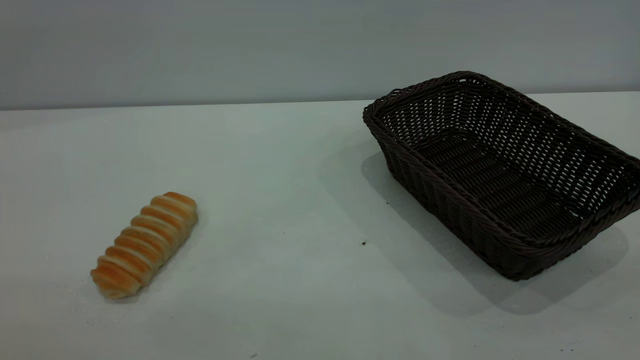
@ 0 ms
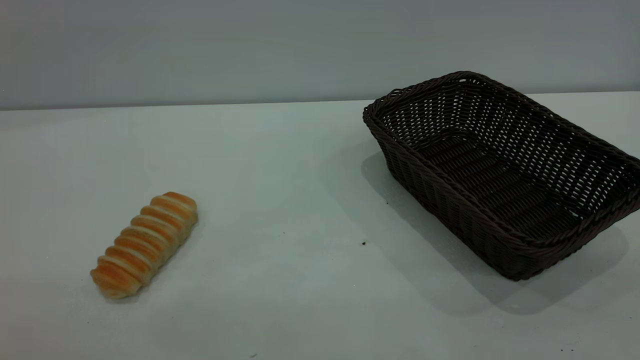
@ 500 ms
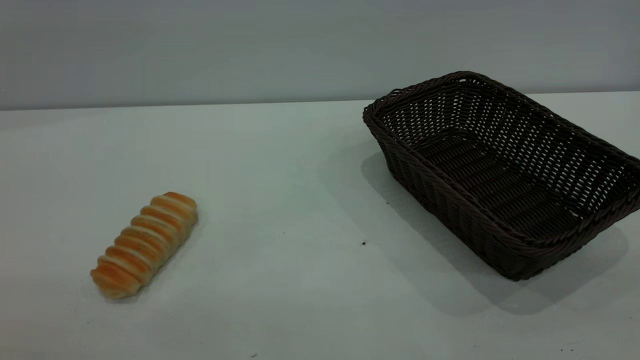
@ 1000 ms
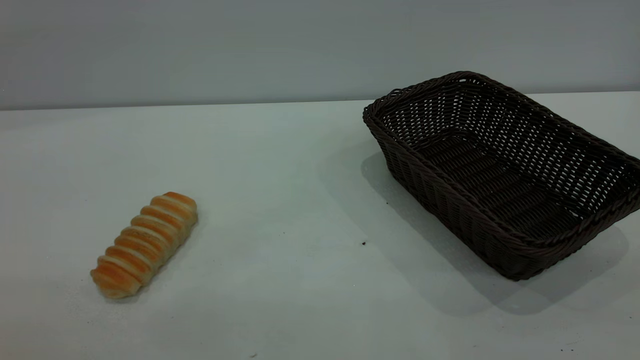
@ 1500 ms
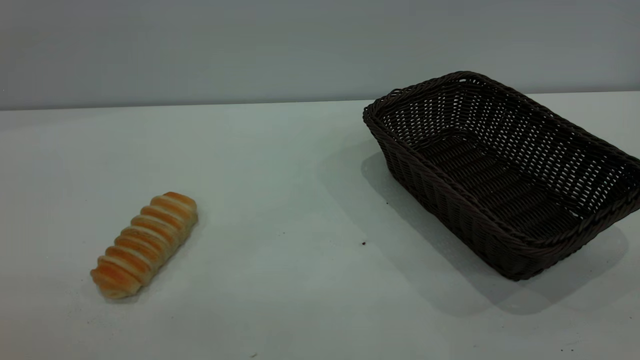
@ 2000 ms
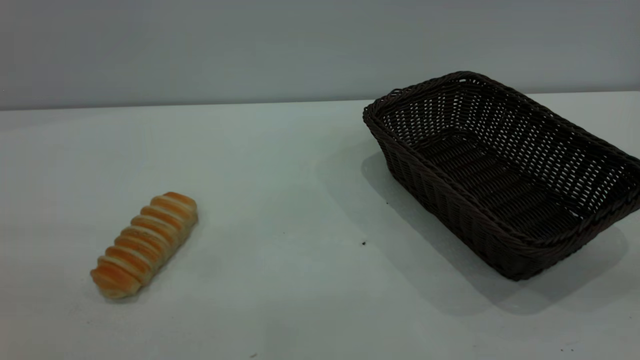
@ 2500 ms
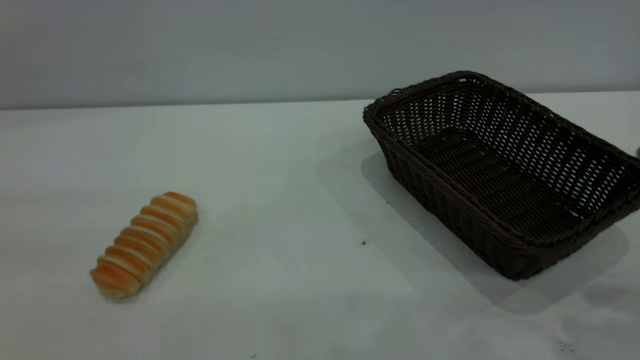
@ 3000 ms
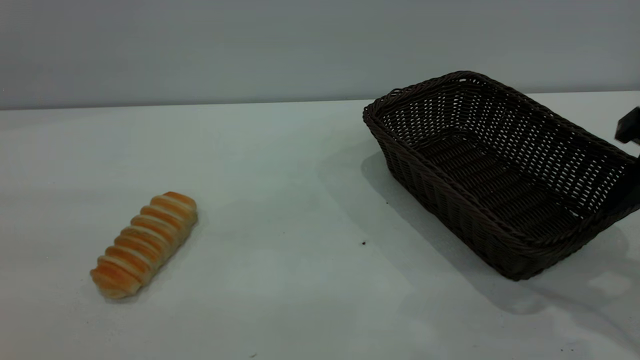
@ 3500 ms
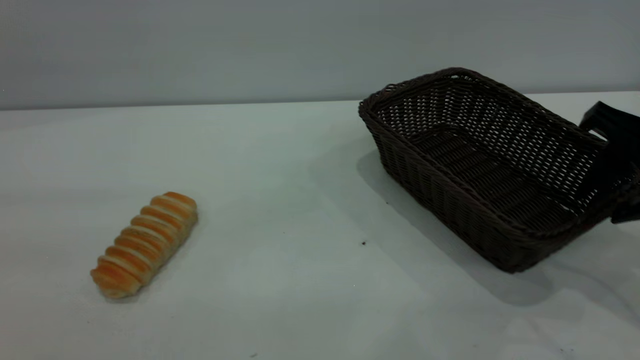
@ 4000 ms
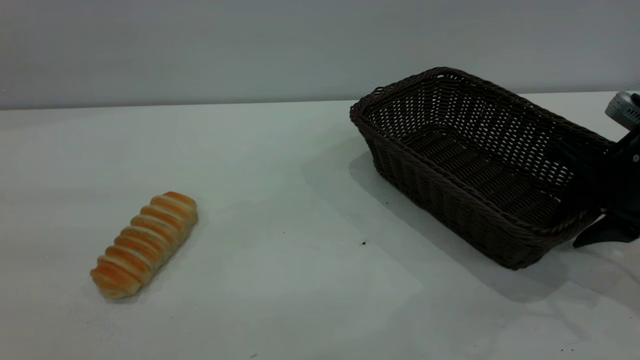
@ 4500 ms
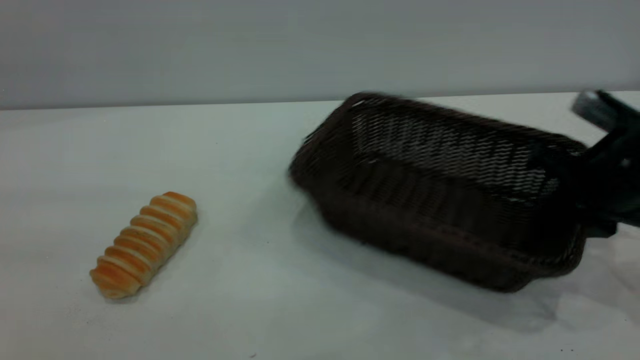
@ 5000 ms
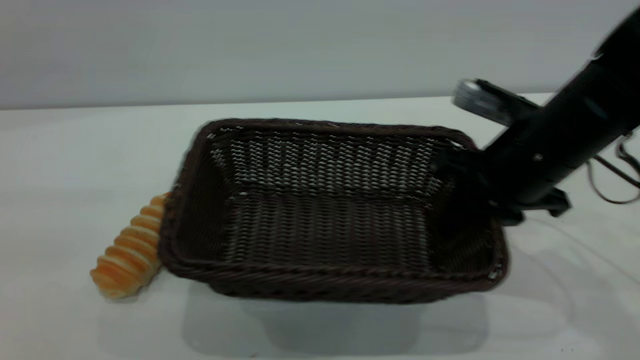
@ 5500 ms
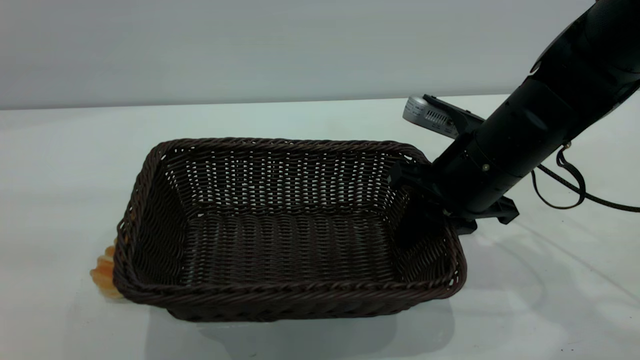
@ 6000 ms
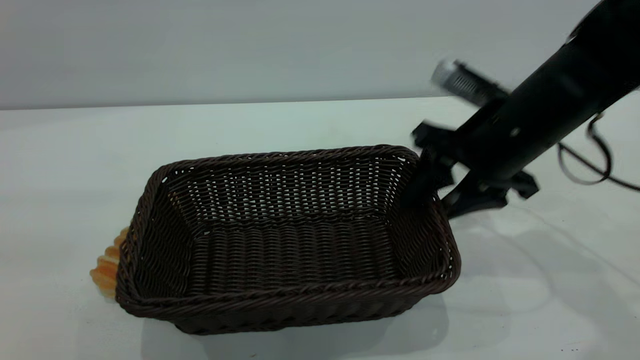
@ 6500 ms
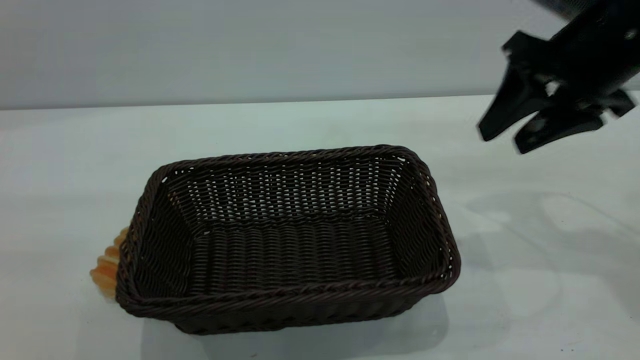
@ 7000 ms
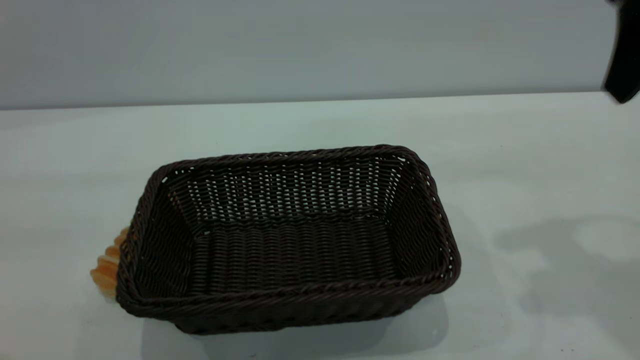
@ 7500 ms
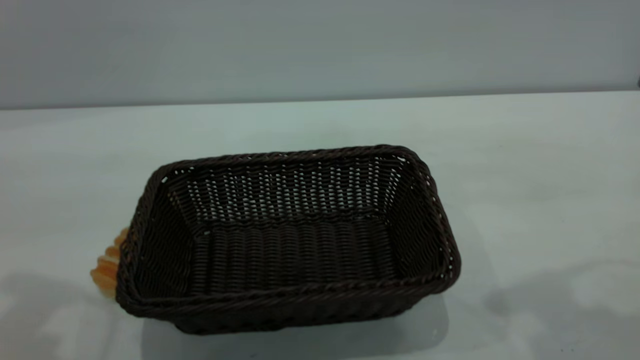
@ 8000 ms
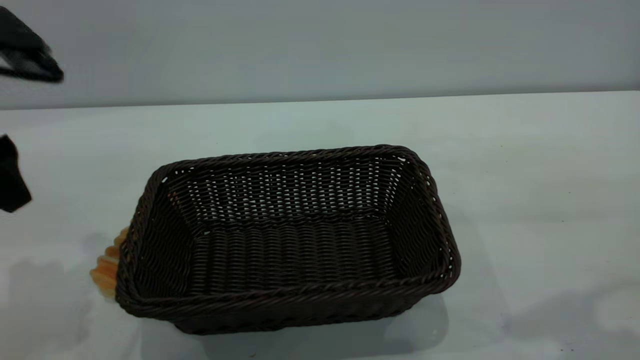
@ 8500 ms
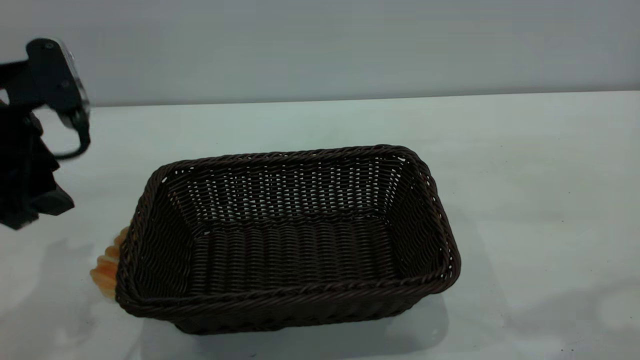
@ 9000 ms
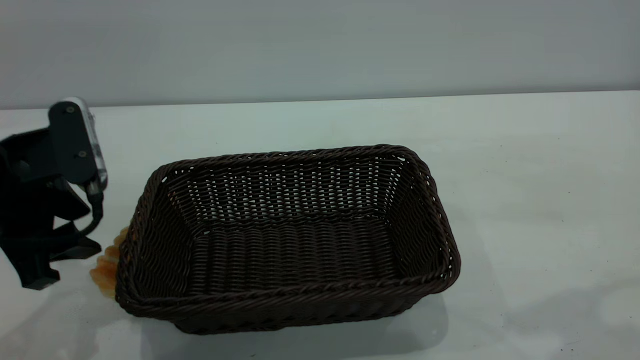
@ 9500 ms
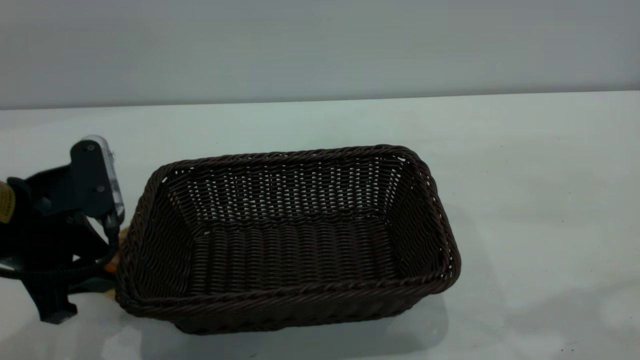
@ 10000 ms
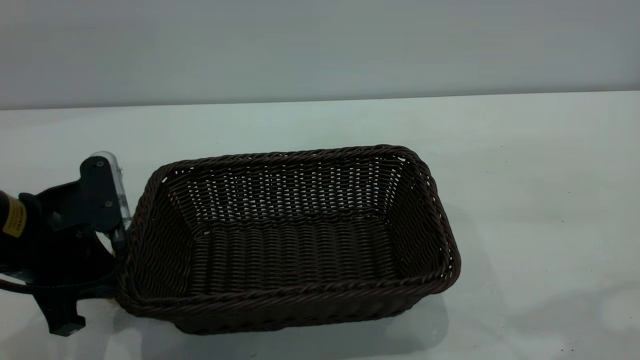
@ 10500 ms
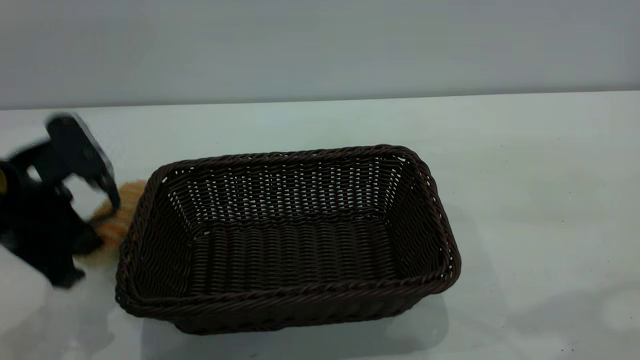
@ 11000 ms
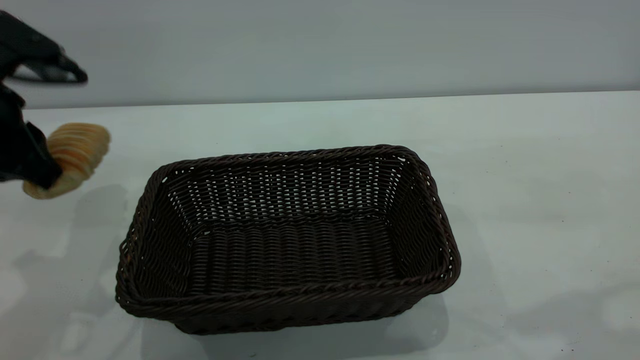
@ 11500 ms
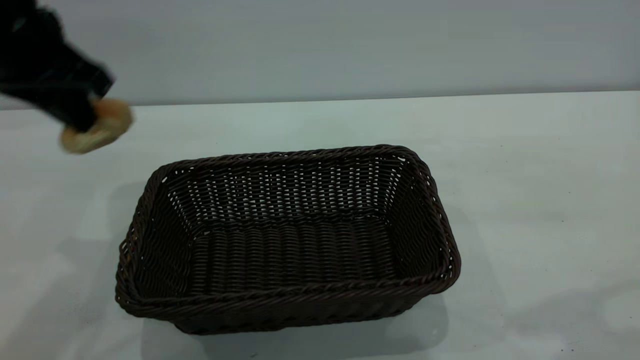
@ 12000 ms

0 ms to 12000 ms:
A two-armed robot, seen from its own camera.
Task of the whole recording: One hand grasps the black basket and places it in the middle of the table, while the other hand picks up the long bread and puts it into the black basket.
Step, 0 ms to 6500 ms: Move the basket to the center of view.
0 ms to 2000 ms: Both grippers stay about where they are.
2000 ms to 4000 ms: The right gripper heads forward and downward, covering roughly 35 cm.
4000 ms to 6000 ms: The right gripper shifts about 15 cm to the left, and closes its fingers.
6000 ms to 8000 ms: The left gripper moves forward, some 15 cm, while the right gripper goes roughly 25 cm upward and backward, and opens.
8000 ms to 10000 ms: The left gripper is displaced downward by some 20 cm.
10000 ms to 12000 ms: The left gripper goes some 15 cm upward and forward, and closes up.

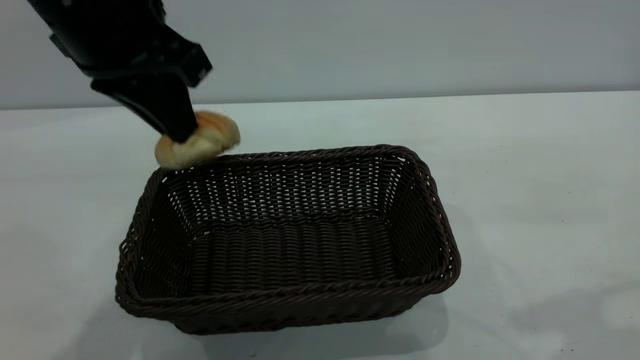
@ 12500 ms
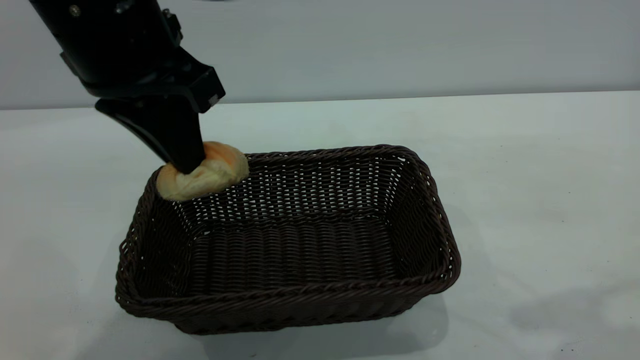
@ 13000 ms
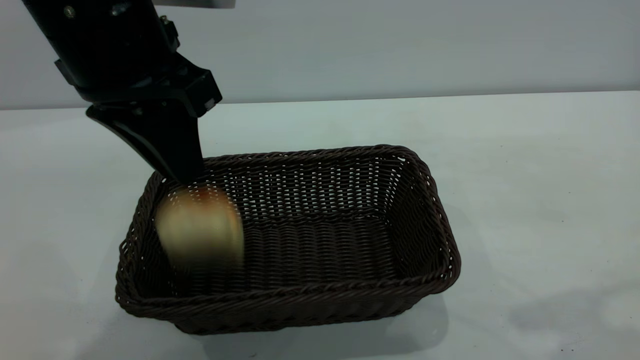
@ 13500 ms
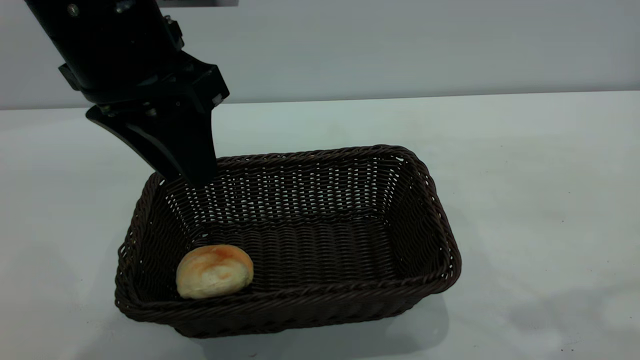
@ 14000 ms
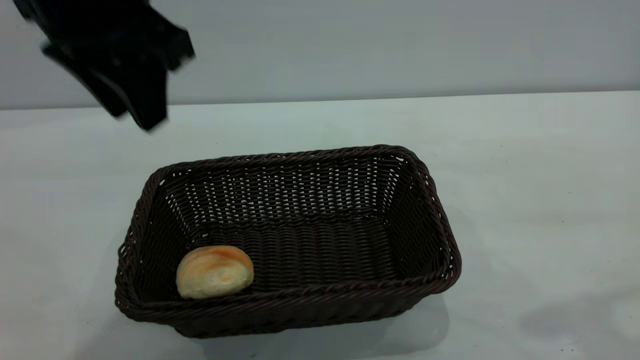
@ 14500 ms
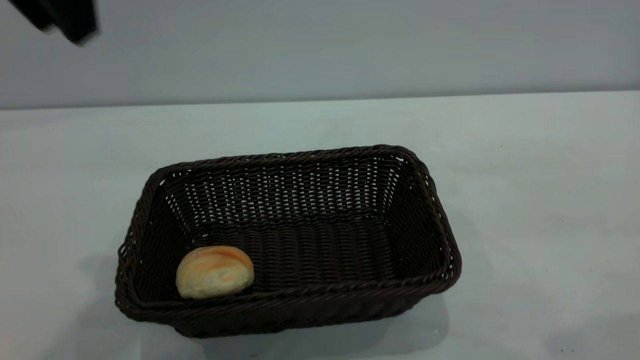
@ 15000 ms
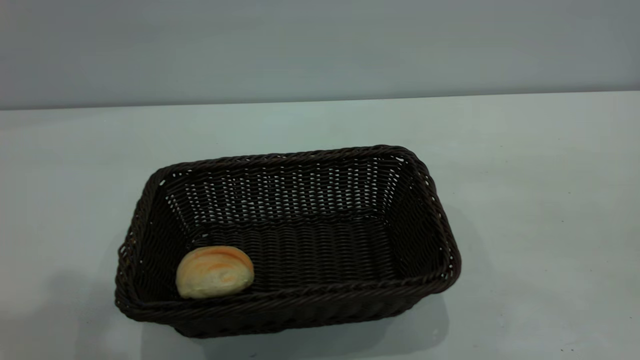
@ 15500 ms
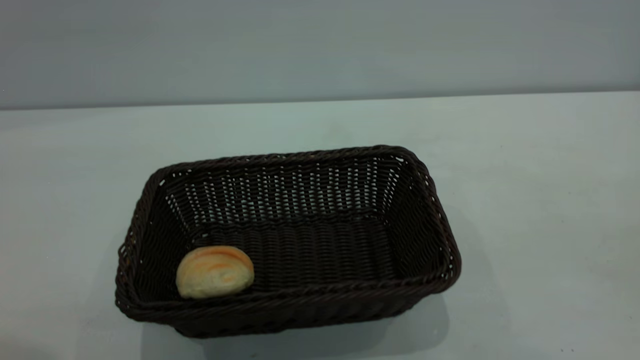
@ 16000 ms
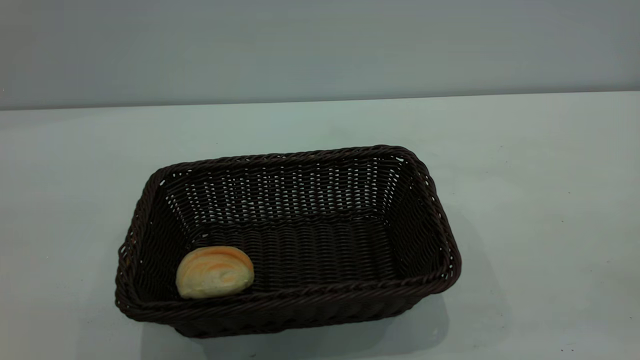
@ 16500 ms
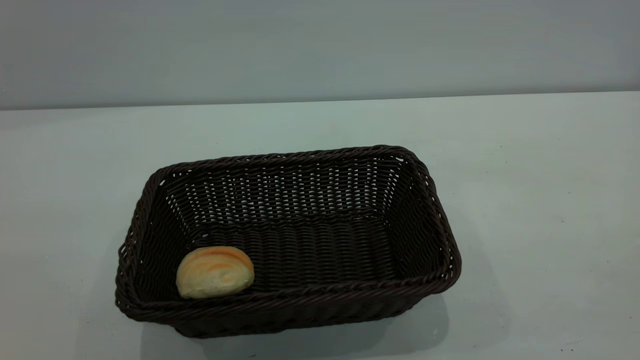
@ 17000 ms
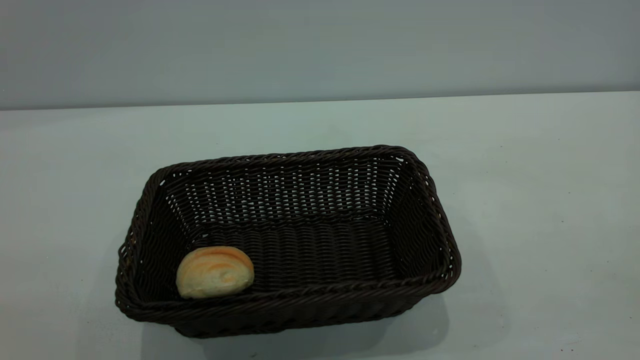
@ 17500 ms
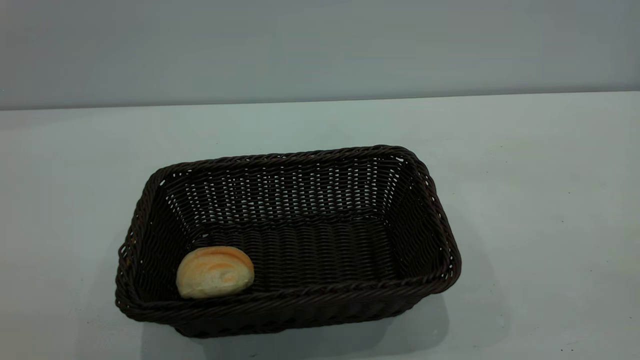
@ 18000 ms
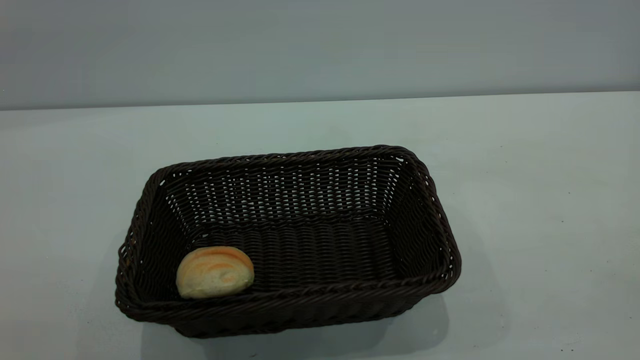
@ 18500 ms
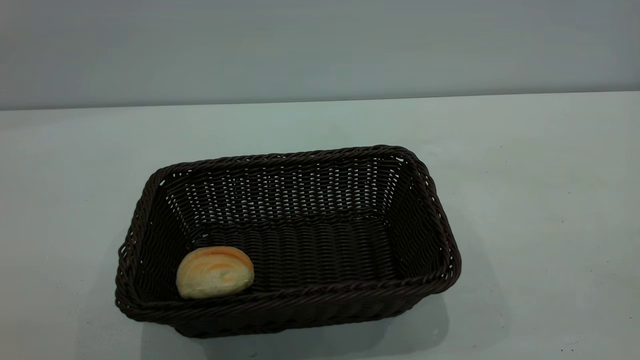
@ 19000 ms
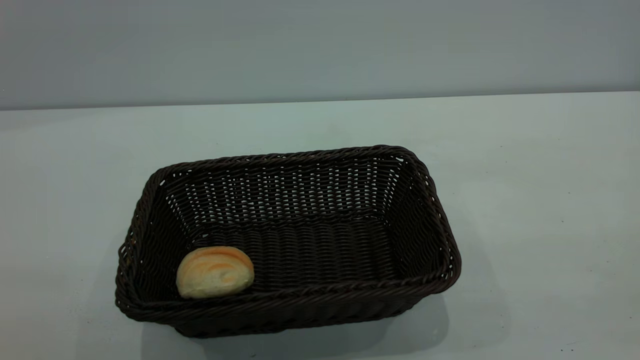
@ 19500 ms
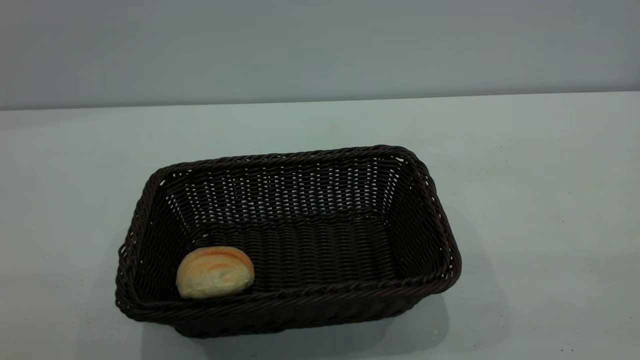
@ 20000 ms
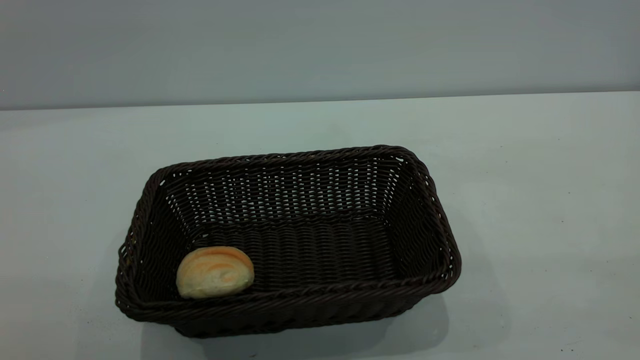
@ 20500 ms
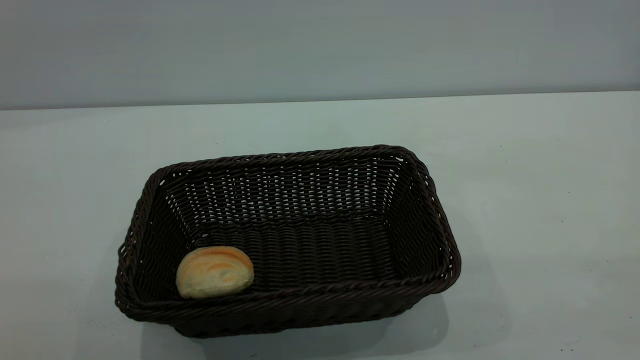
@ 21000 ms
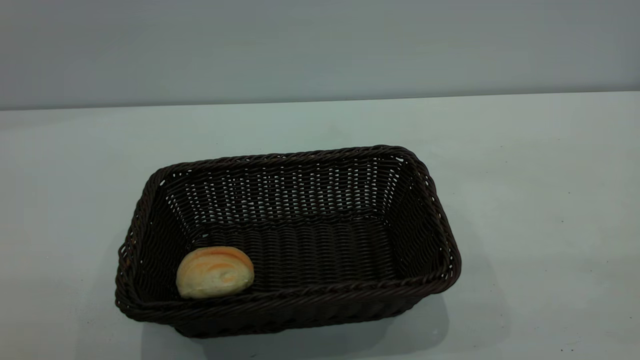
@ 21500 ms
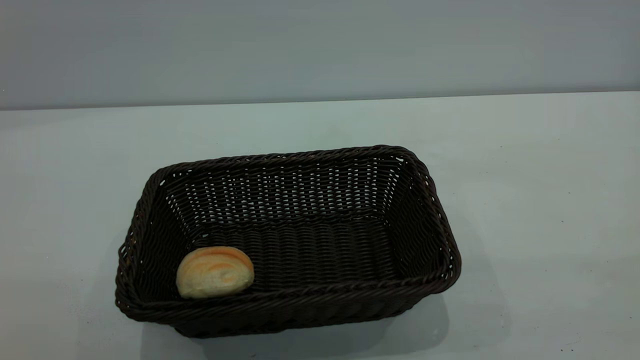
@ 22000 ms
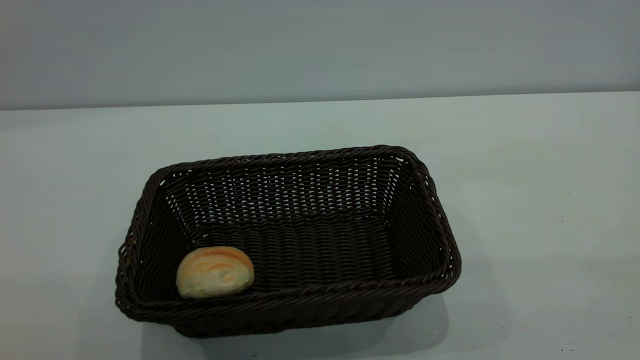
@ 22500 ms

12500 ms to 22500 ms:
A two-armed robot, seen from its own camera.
Task of the whole recording: One hand grasps the black basket and places it in the middle of the table, while the other hand picks up the long bread and puts it into the black basket.
12500 ms to 14500 ms: The left gripper opens.
14500 ms to 16500 ms: The left gripper travels backward, to the left and upward by roughly 30 cm.
20500 ms to 22500 ms: Both grippers stay about where they are.
